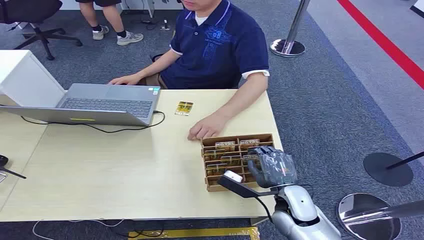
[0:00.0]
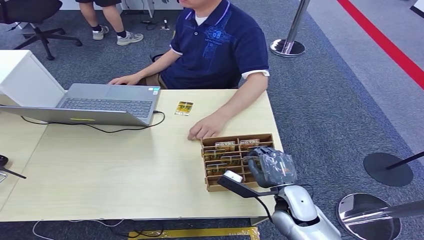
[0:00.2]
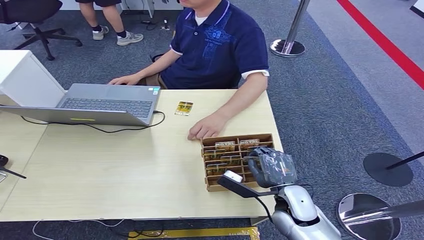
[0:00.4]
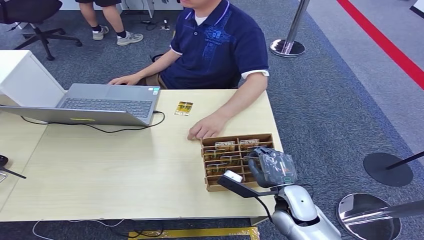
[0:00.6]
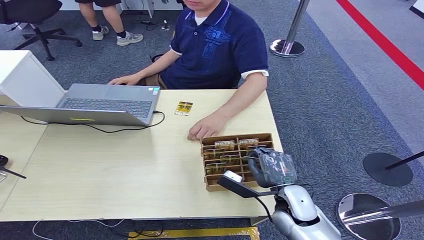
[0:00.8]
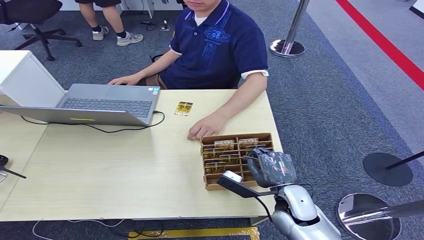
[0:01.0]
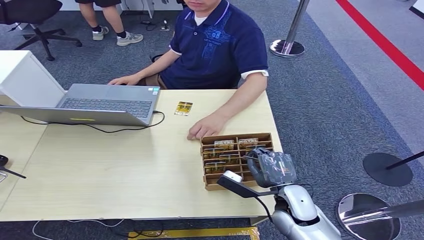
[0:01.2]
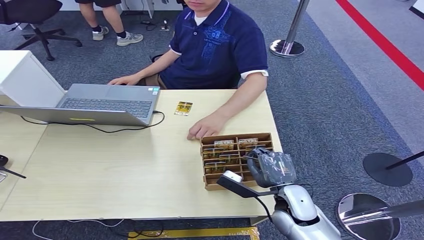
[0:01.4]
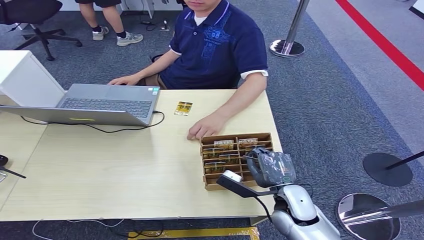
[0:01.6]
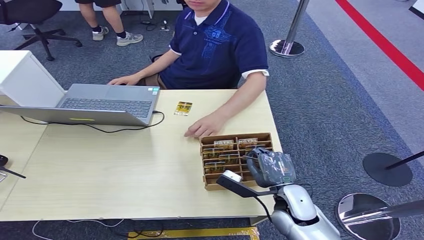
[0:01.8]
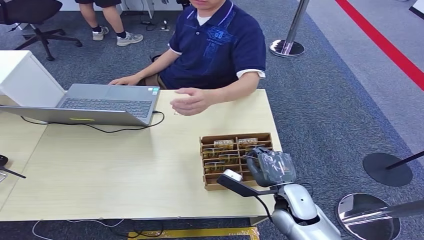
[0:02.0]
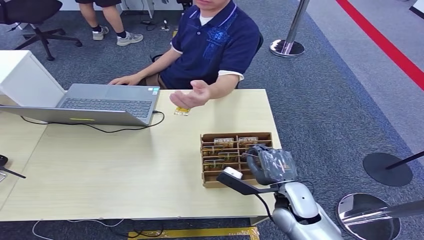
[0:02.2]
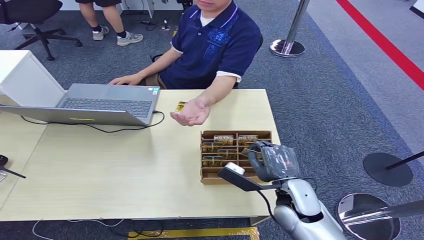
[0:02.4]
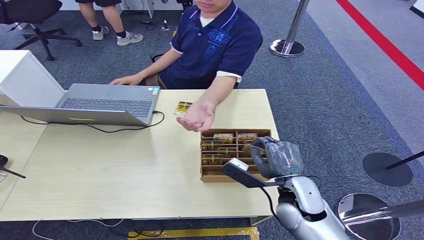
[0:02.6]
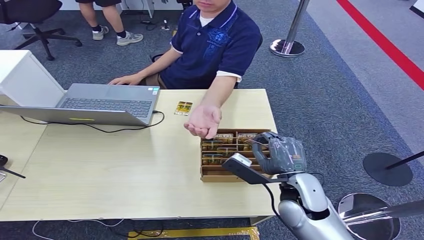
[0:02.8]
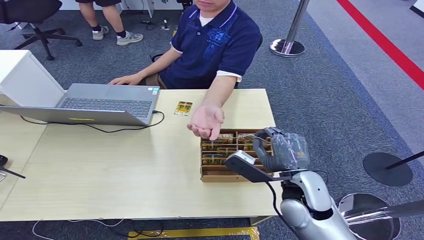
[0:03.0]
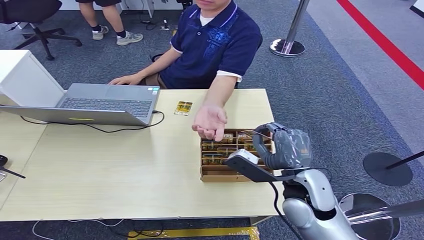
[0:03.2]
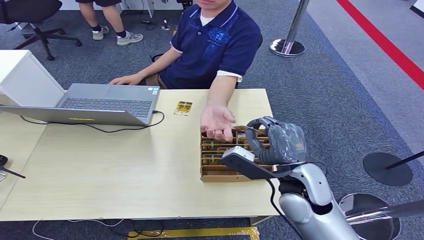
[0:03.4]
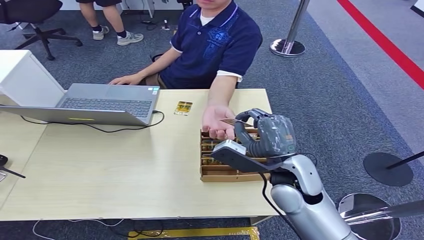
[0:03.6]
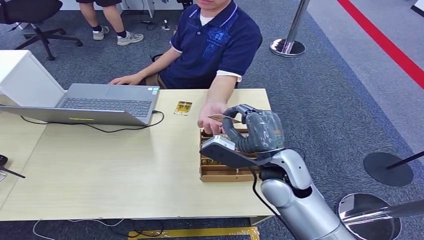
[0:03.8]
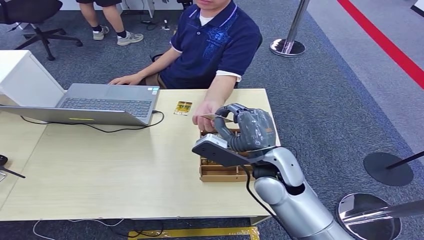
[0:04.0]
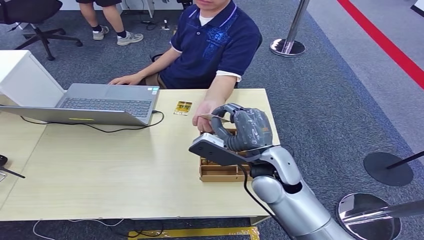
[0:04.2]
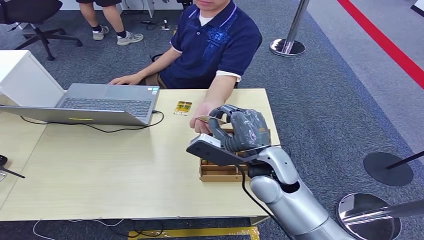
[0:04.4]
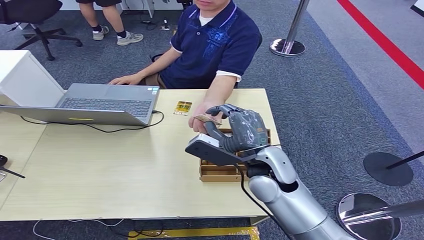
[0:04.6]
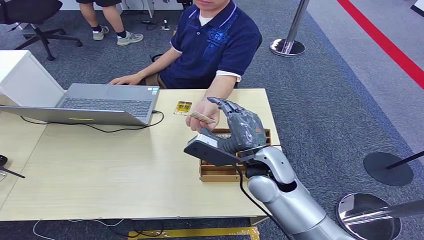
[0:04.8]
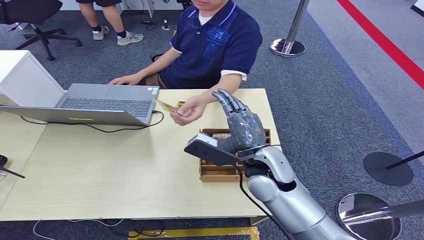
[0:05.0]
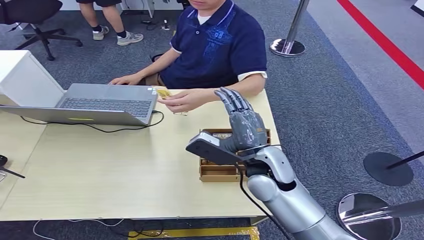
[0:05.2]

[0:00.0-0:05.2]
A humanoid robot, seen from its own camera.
Task of the whole recording: Pick up the card and hand it over to the target person.
Step, 0:00.0 to 0:03.2: Pick up the key card from the card box.
Step, 0:03.6 to 0:05.0: Hand the key card to the target.
0:01.8 to 0:03.4: The right hand goes some 10 cm upward.
0:03.4 to 0:05.2: The hands move only a little.
